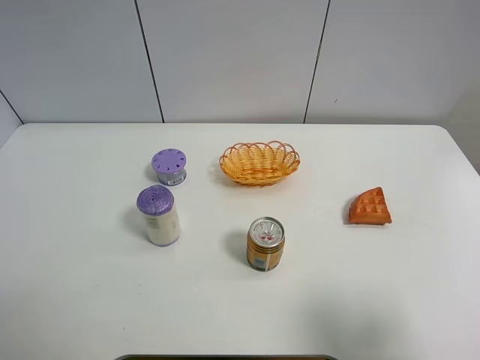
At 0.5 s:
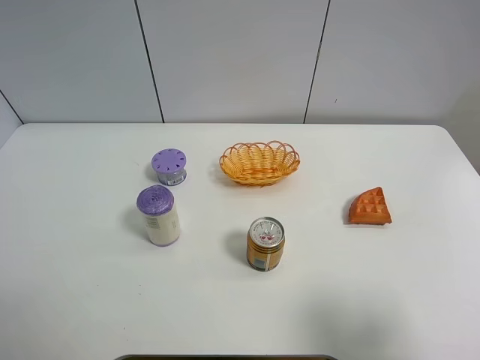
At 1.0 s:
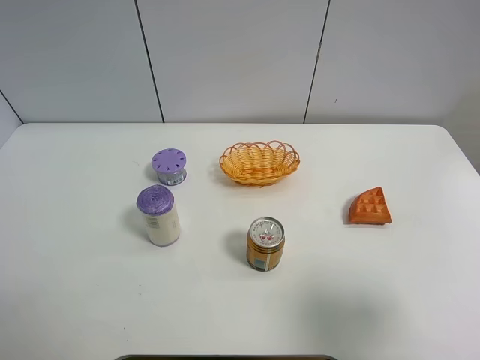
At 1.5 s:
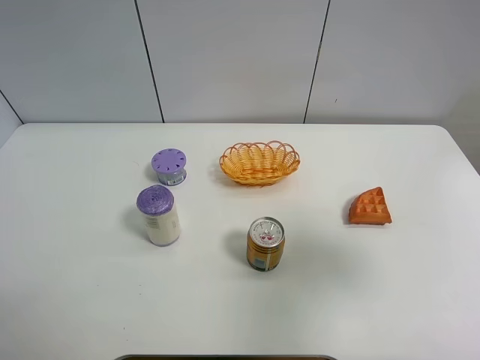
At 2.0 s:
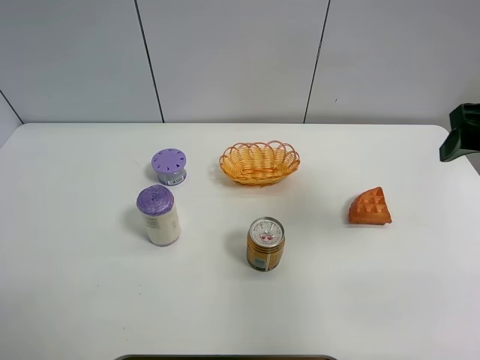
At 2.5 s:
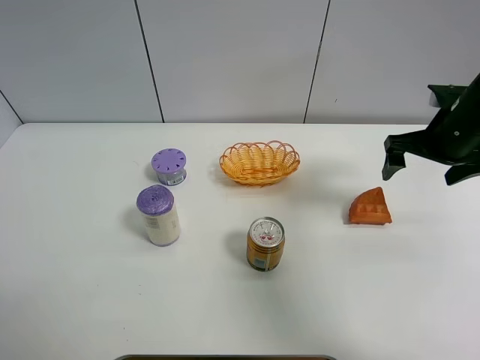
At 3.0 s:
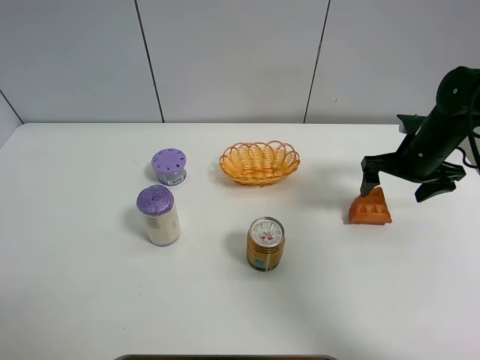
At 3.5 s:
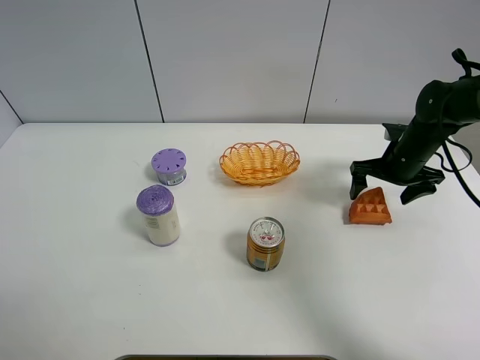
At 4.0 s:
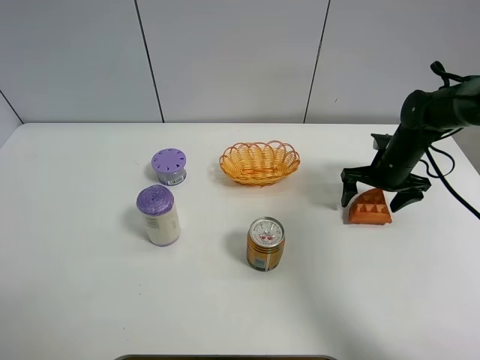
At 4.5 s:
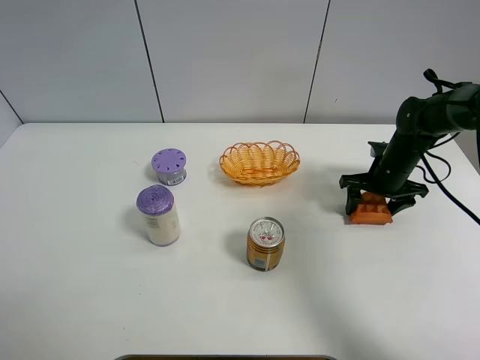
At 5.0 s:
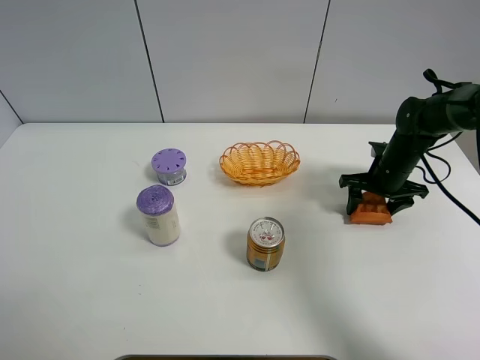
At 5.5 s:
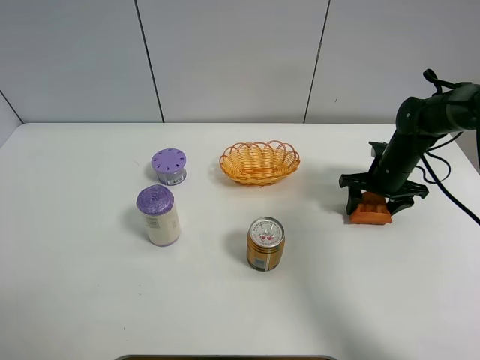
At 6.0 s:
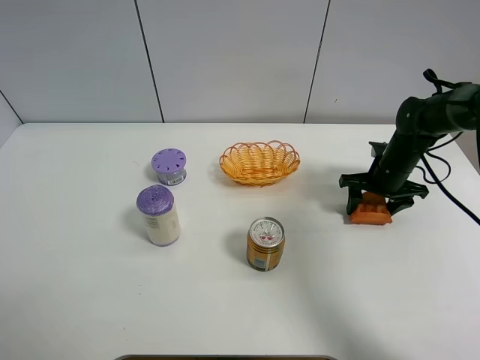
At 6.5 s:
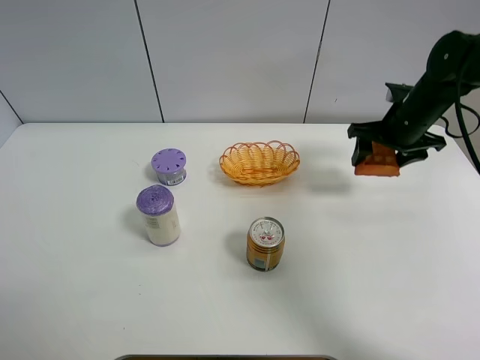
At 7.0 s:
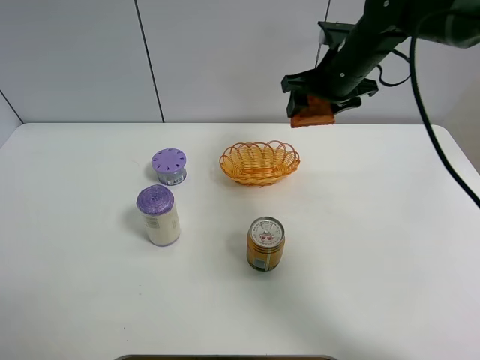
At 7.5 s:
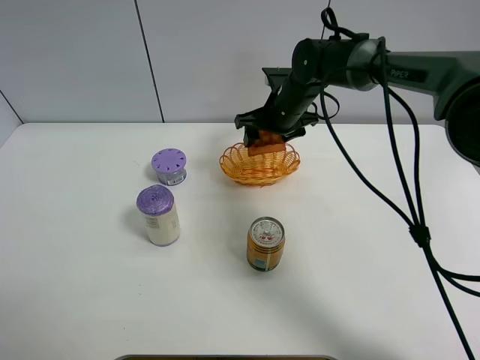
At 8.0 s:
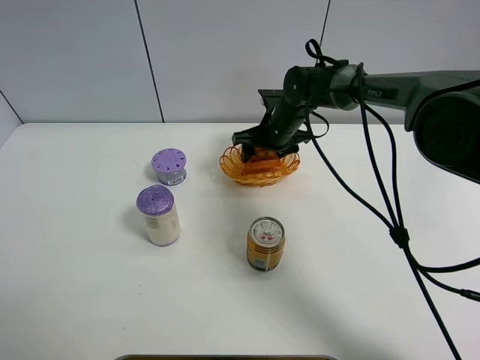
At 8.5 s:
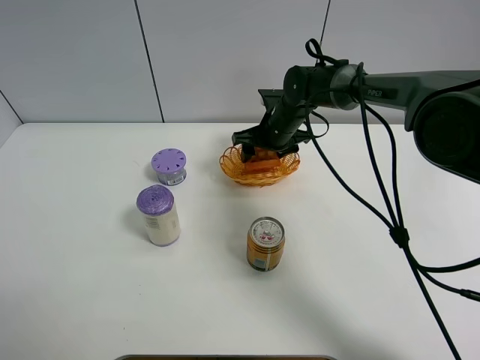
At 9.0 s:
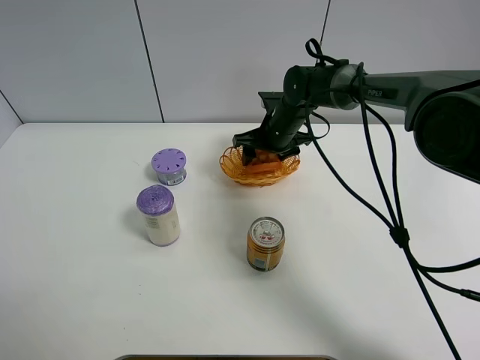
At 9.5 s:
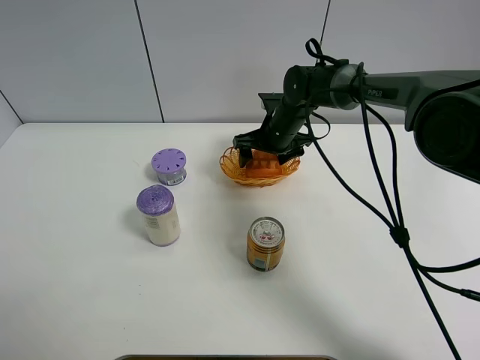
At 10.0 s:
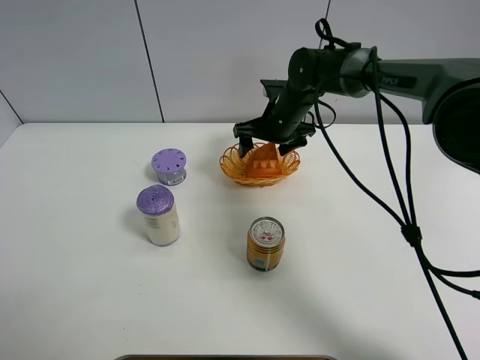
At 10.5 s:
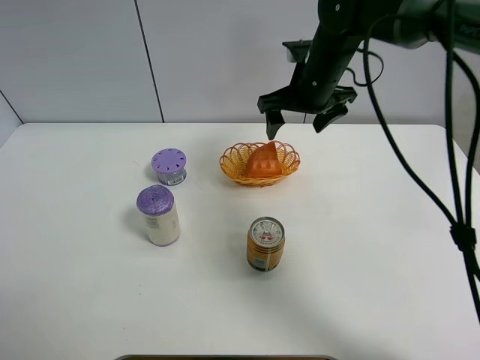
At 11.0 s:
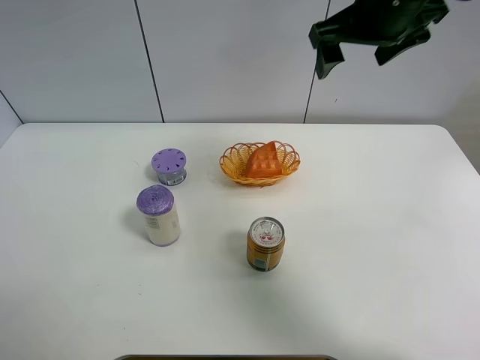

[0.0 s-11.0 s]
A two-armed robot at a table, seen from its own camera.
Task of the whole recording: Put the bakery in the basket.
Step, 0.0 to 4.5 s: Grasp the bread with right gripper.
Step, 5.0 to 10.0 s: Place the bread in the basket with right gripper.
0.0 to 2.0 s: The right gripper shifts roughly 25 cm forward.
2.0 to 3.5 s: The right gripper goes some 25 cm downward and forward, and opens its fingers.
3.5 to 5.5 s: The right gripper closes up.
5.5 to 7.5 s: The right gripper shifts roughly 20 cm to the left and upward.
7.5 to 9.0 s: The grippers move only a little.
9.0 to 11.0 s: The right gripper is displaced upward and backward by roughly 30 cm, and opens up.

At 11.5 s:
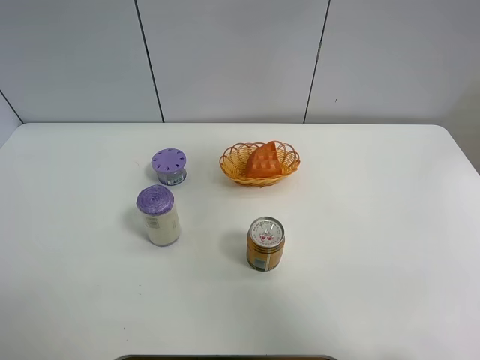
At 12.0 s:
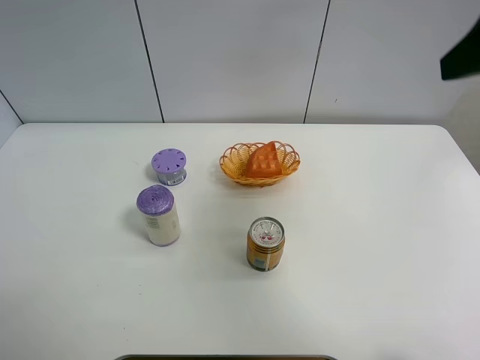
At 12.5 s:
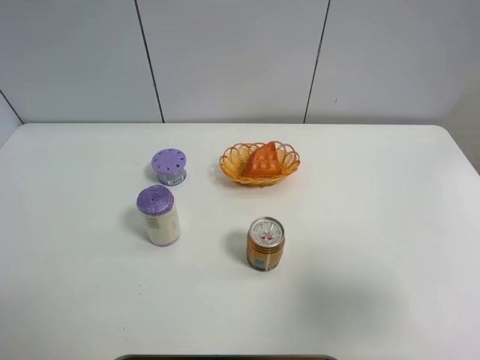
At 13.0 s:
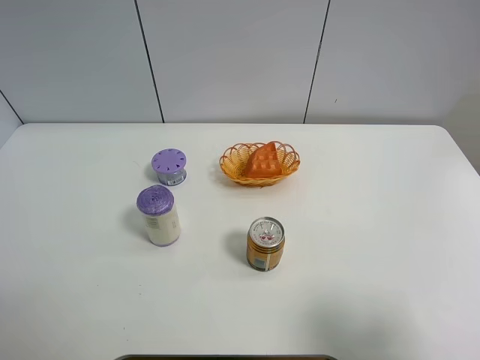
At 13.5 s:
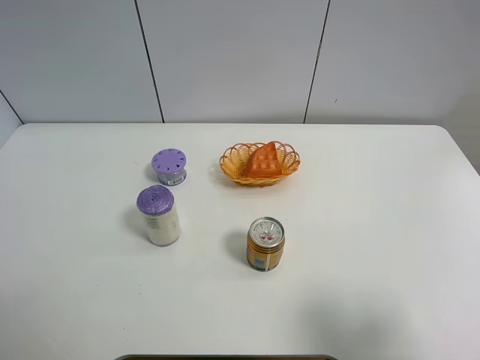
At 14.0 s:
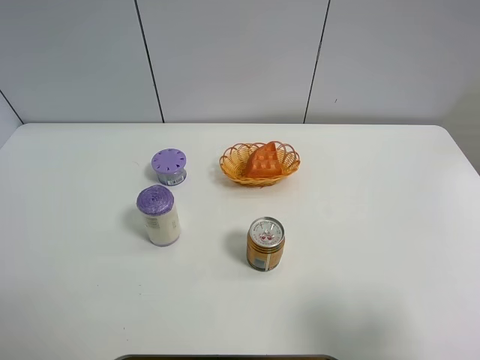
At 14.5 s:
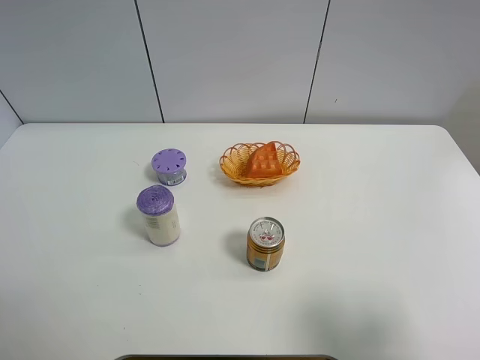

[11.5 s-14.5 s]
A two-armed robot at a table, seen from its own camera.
Task of the whole recording: Put the bakery in the basket.
11.5 to 13.0 s: The right gripper travels backward and downward by approximately 30 cm.
13.0 to 14.5 s: Both grippers stay about where they are.

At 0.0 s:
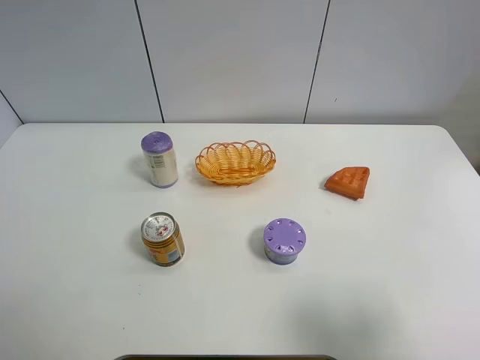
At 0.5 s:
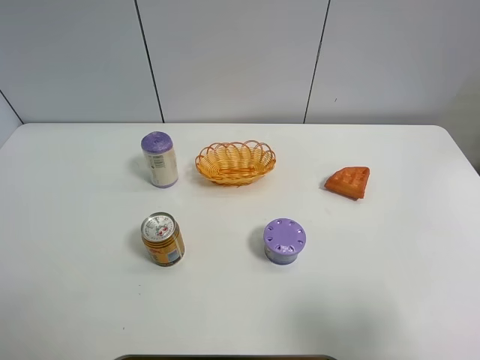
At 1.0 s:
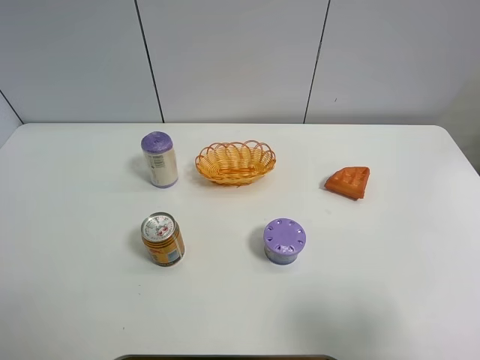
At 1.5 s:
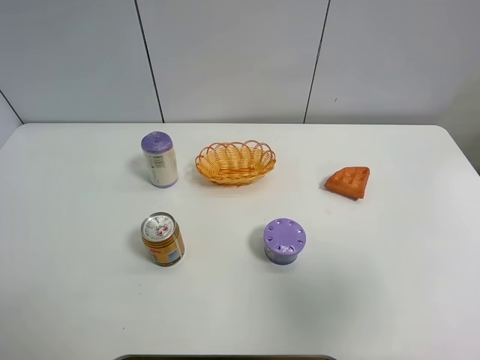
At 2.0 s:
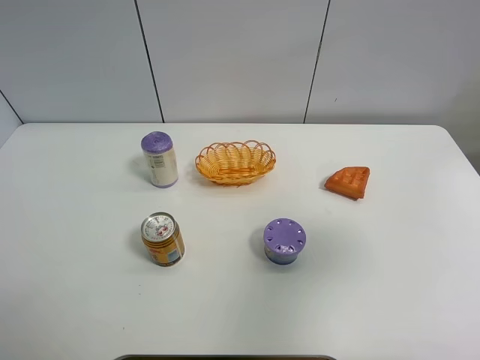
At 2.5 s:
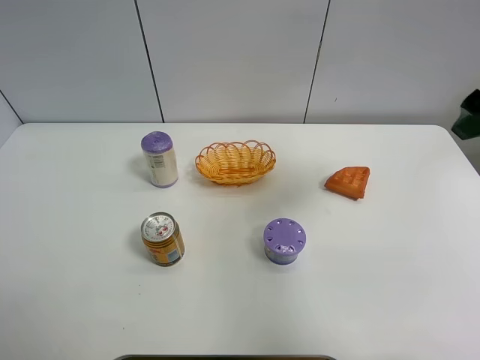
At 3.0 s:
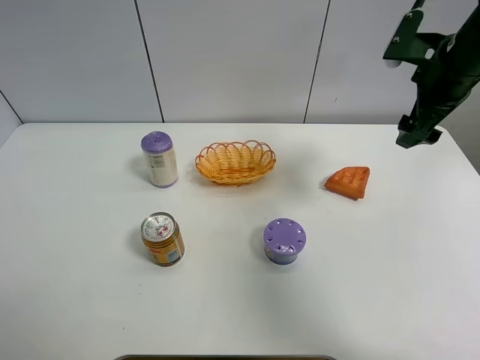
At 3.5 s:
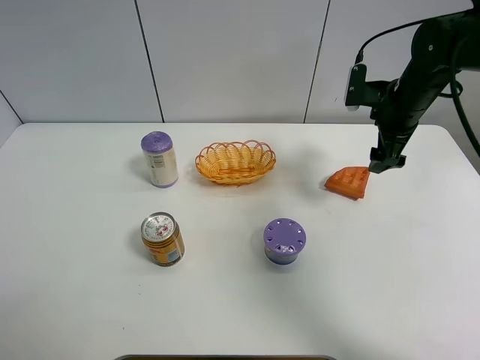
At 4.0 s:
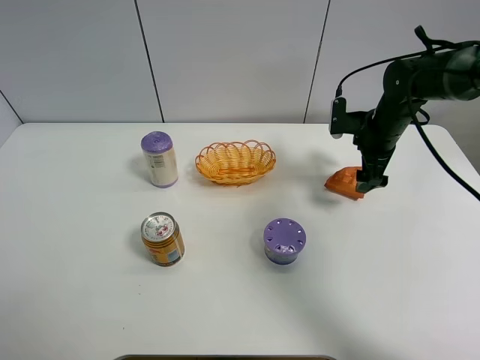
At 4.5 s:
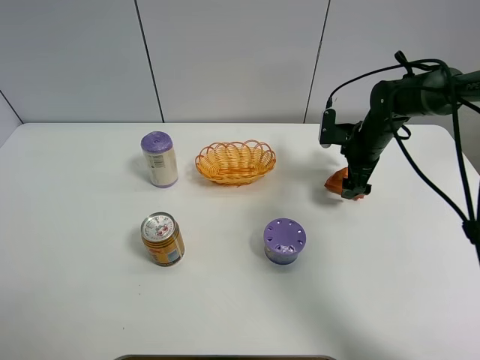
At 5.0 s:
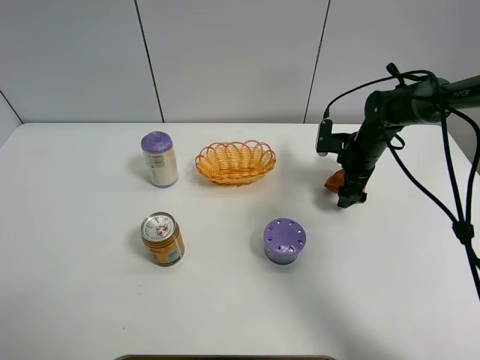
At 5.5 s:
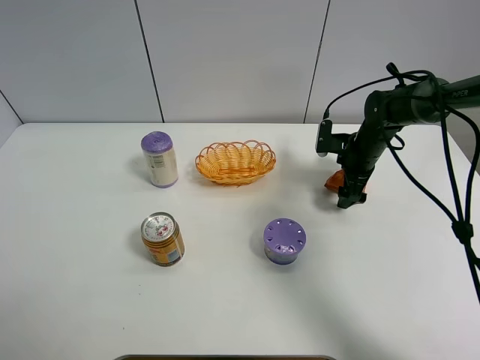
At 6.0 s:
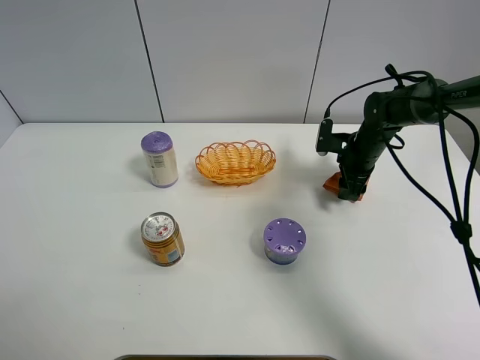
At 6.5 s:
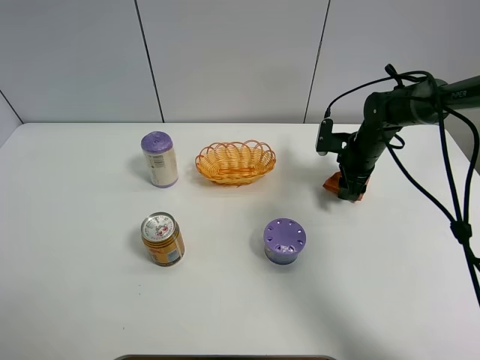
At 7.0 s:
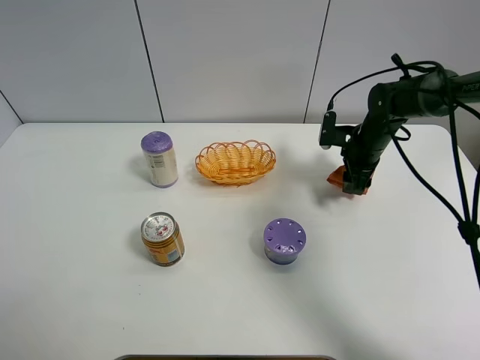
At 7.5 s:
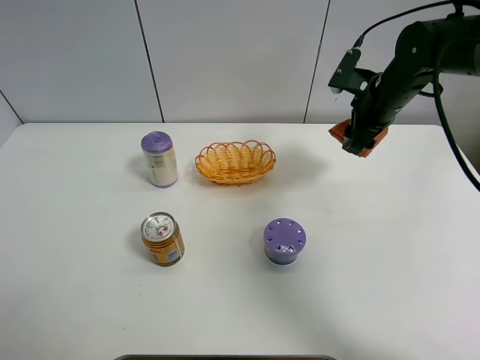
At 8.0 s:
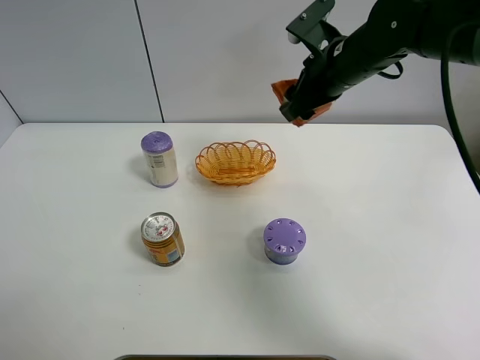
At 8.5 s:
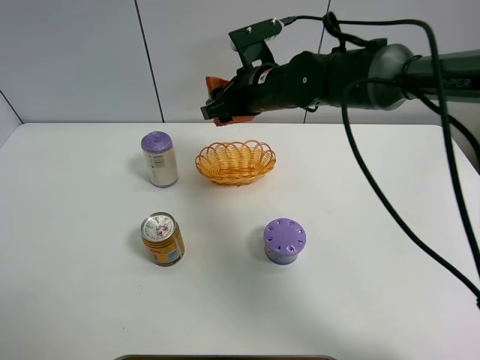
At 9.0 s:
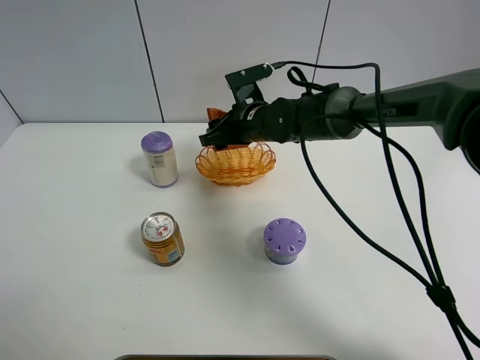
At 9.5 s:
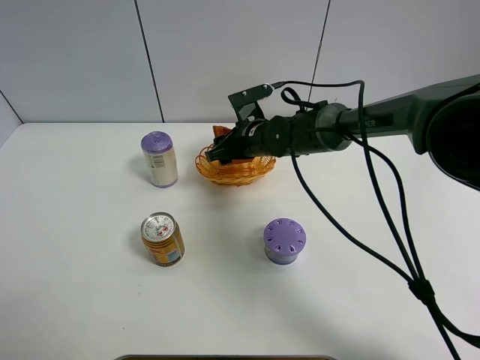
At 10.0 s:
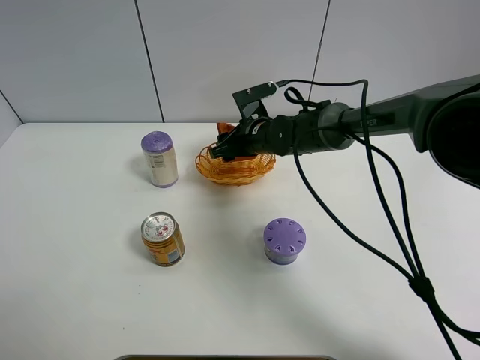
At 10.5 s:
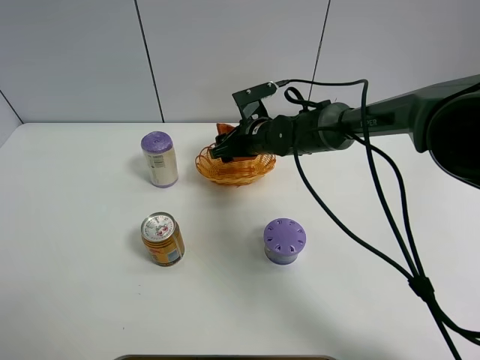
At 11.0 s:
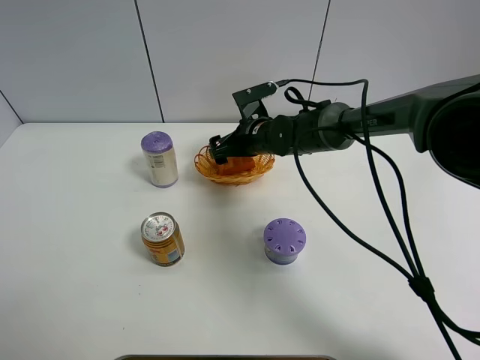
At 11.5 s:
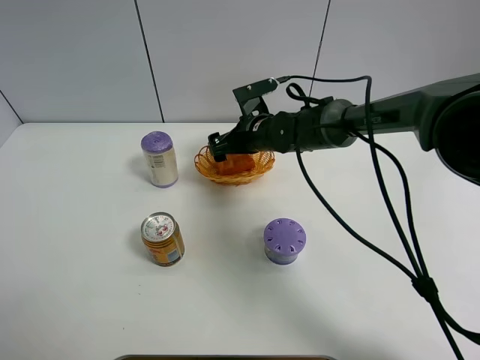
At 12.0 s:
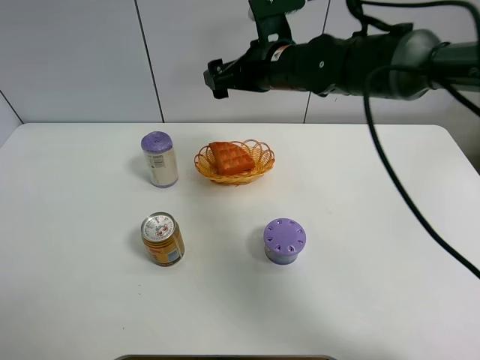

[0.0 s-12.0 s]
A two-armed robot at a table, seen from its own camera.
Task of the whole recording: Put the bakery in the basket.
Step, 0.0 to 5.5 s: Grasp the bread with right gripper.
Step, 6.0 to 11.5 s: Place the bread in the basket with right gripper.
0.0 to 2.0 s: The right gripper heads forward and upward, covering roughly 15 cm.
2.0 to 4.0 s: The right gripper is displaced forward and downward by approximately 35 cm.
4.0 to 6.0 s: The right gripper is displaced downward by about 5 cm, and closes up.
6.0 to 8.0 s: The right gripper moves upward and to the left, some 20 cm.
8.0 to 10.0 s: The right gripper travels downward and to the left by approximately 20 cm.
10.0 to 12.0 s: The right gripper shifts some 15 cm upward, and opens up.
